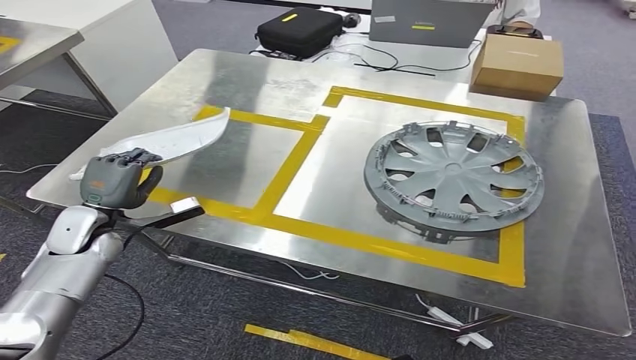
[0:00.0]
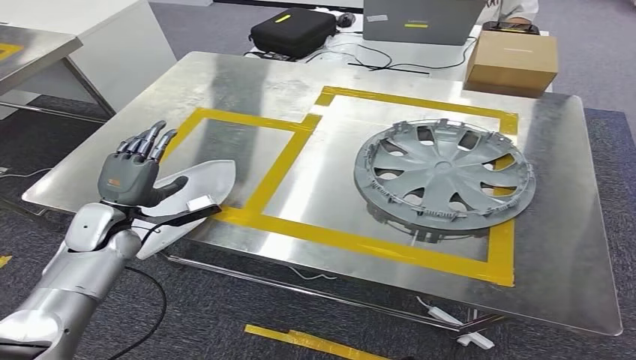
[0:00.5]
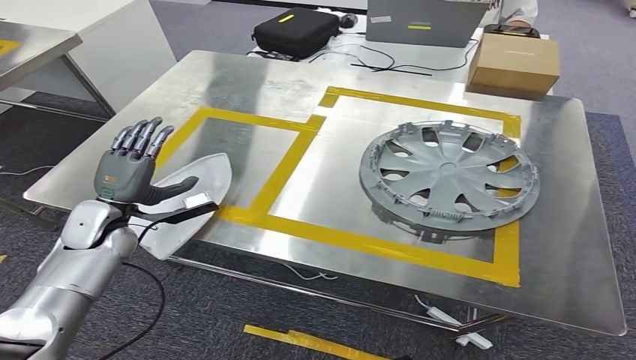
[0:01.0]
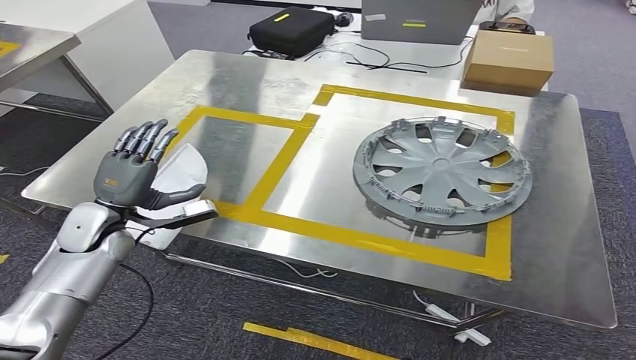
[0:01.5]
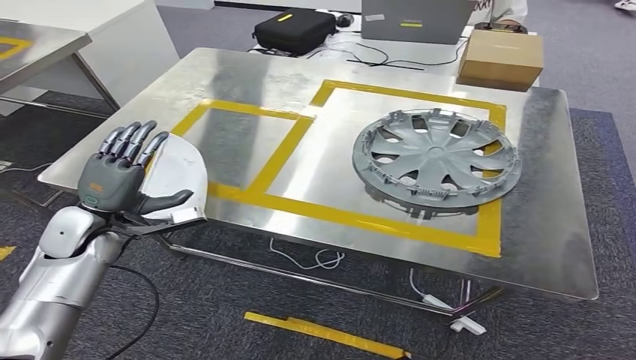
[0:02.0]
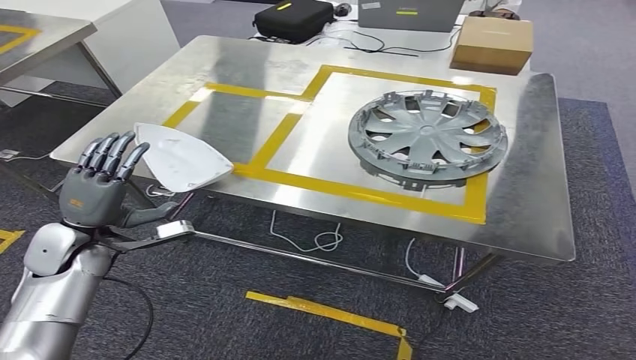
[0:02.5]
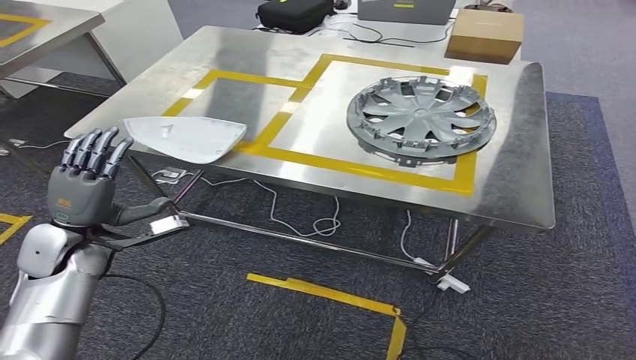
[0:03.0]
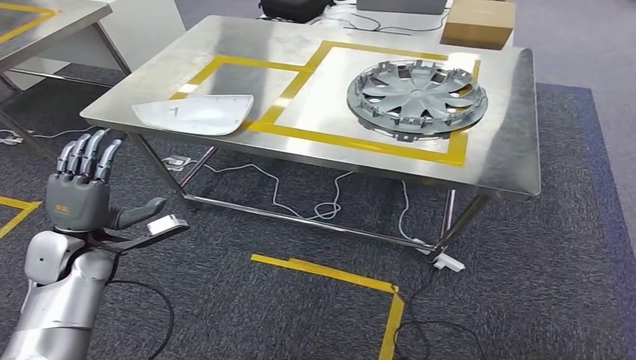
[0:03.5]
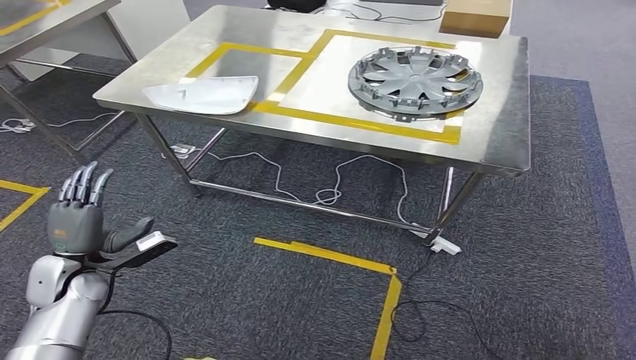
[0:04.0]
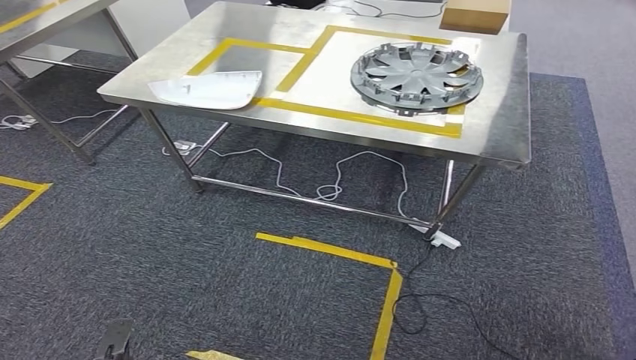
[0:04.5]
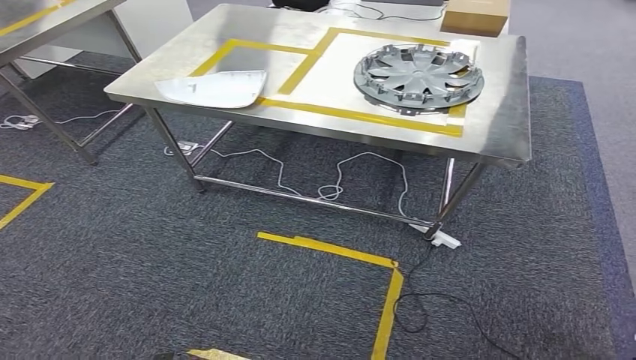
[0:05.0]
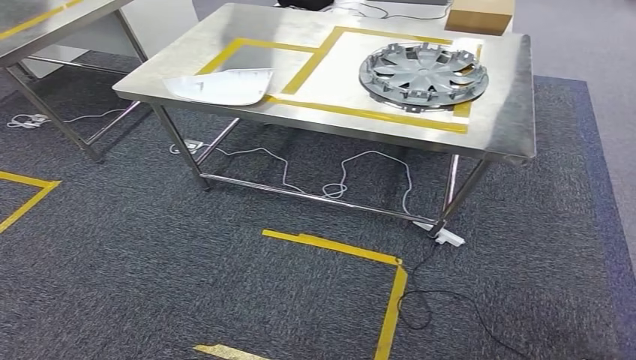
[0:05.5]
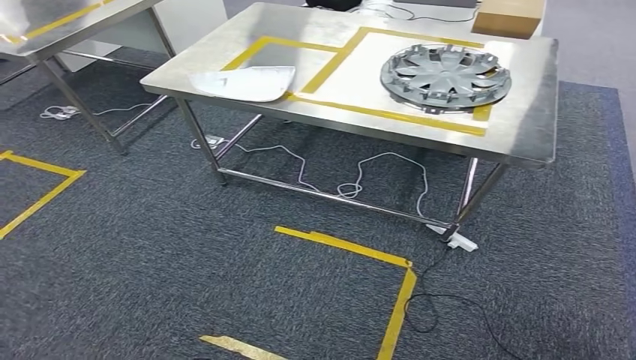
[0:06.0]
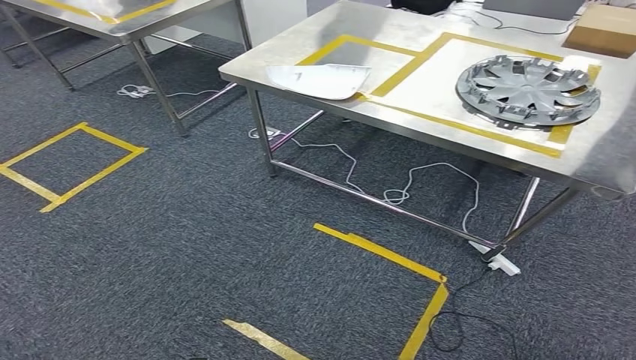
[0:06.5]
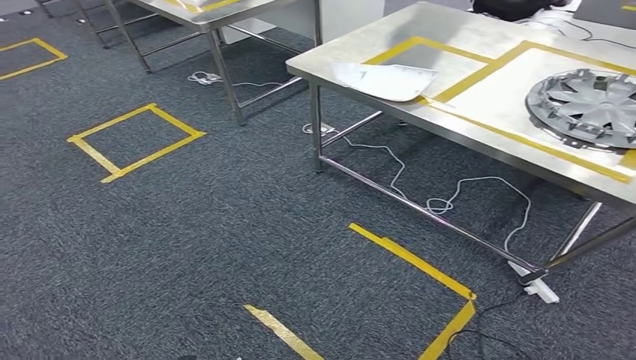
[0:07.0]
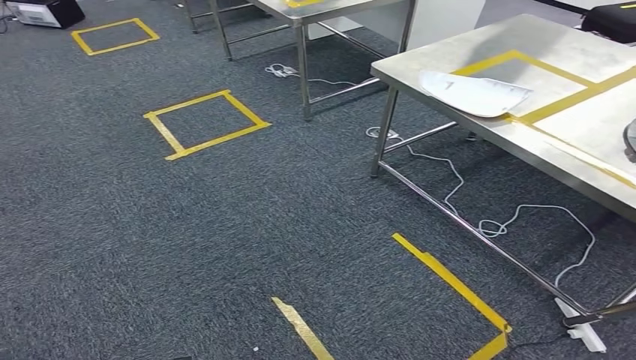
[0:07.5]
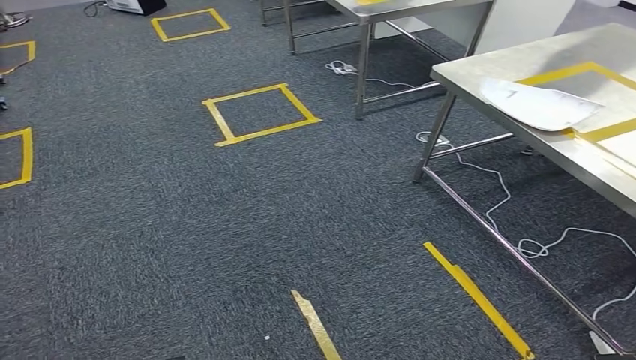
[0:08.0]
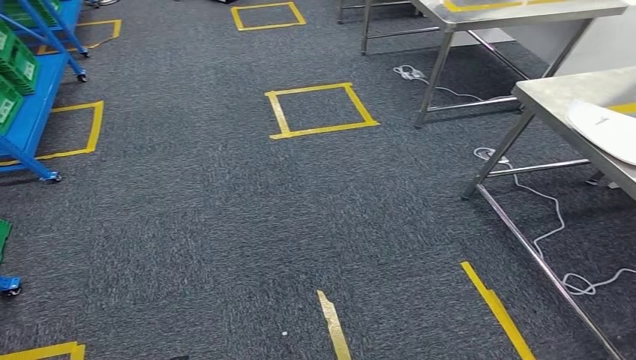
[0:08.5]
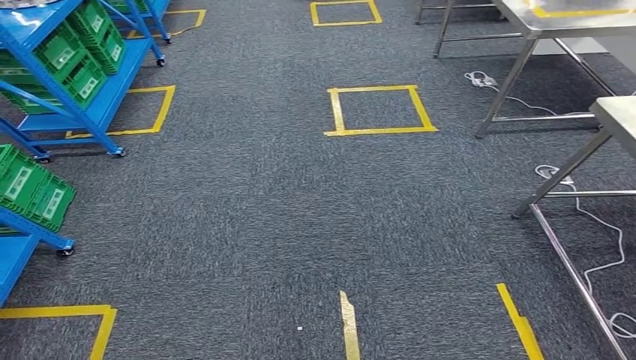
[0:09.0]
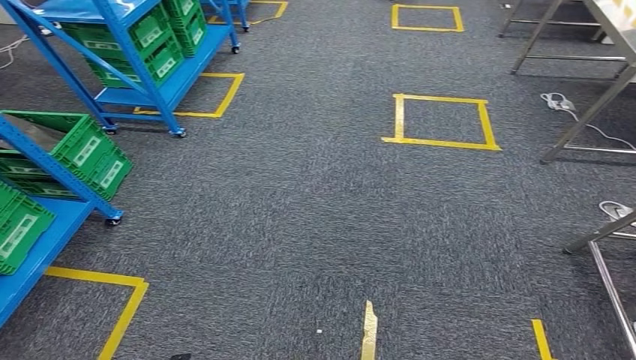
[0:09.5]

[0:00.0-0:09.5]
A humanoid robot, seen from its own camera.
Step, 0:00.0 to 0:02.0: Insert the small component into the corresponding slot on the workbench.

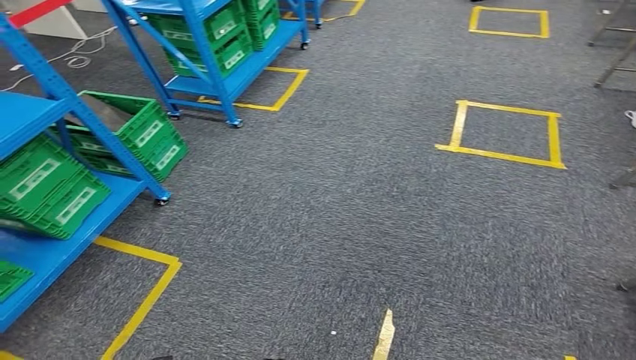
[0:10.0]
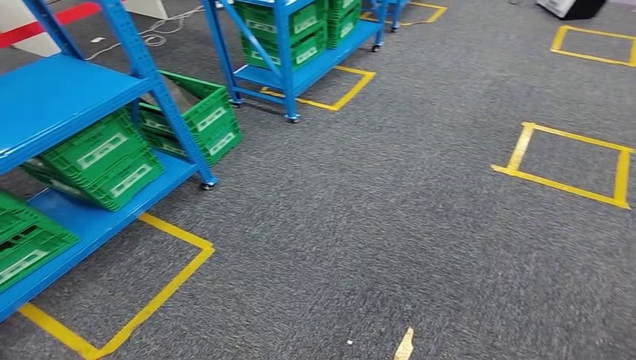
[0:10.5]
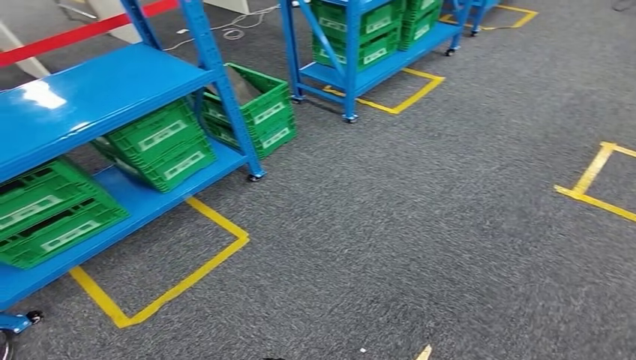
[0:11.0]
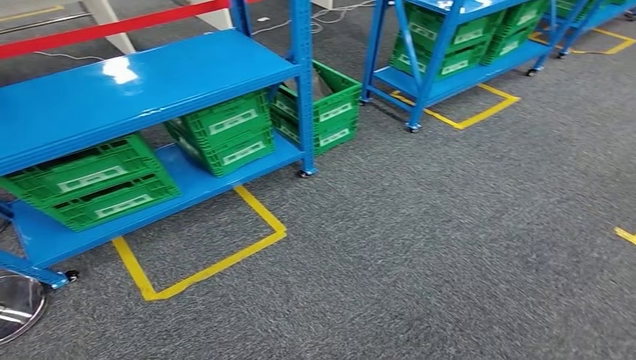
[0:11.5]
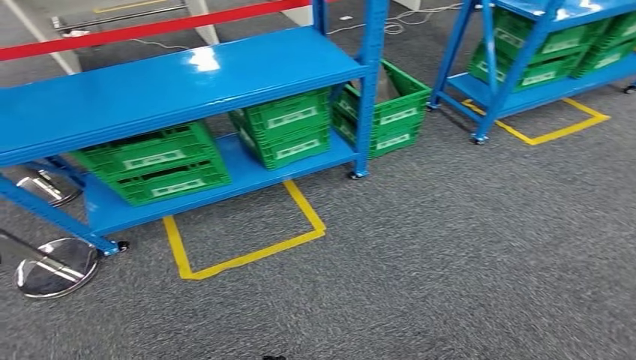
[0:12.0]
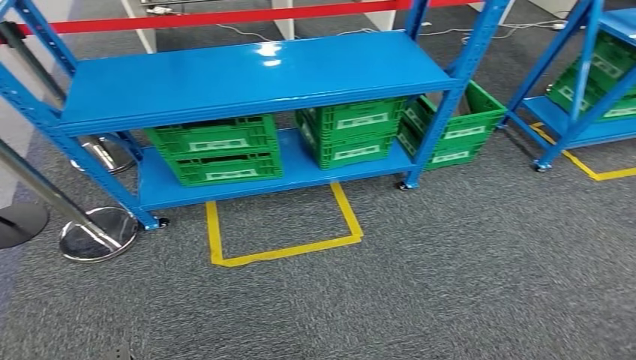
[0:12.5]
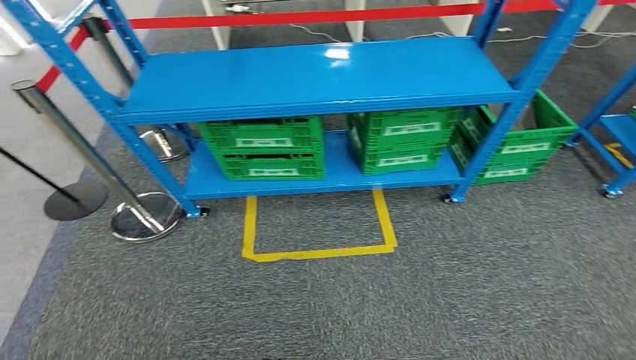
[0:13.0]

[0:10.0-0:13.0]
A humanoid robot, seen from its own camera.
Step, 0:10.0 to 0:13.0: Return to the initial position at the workbench.

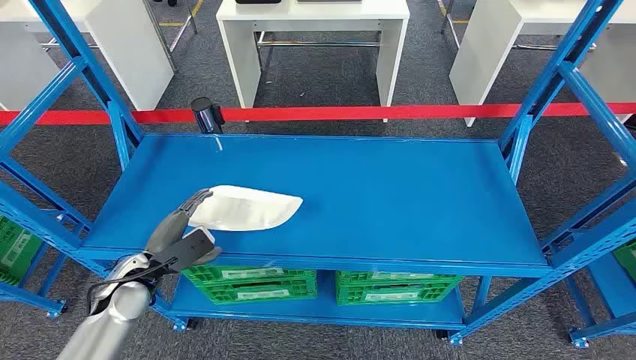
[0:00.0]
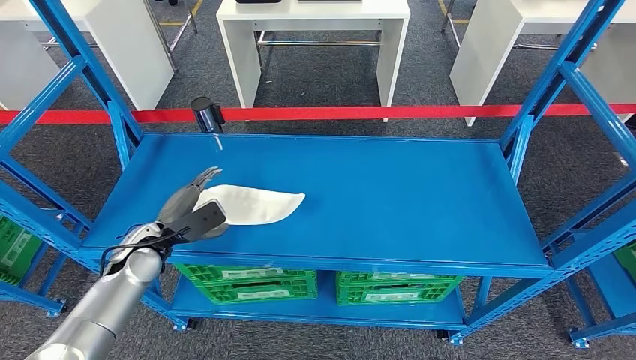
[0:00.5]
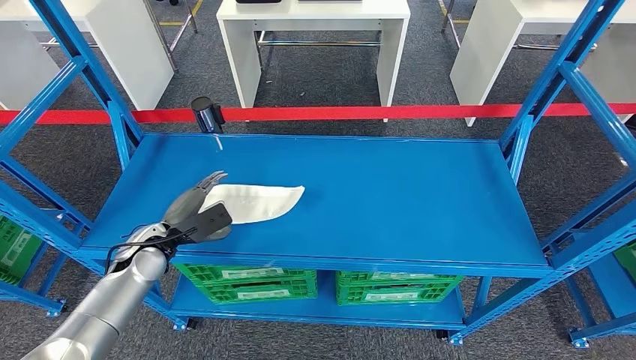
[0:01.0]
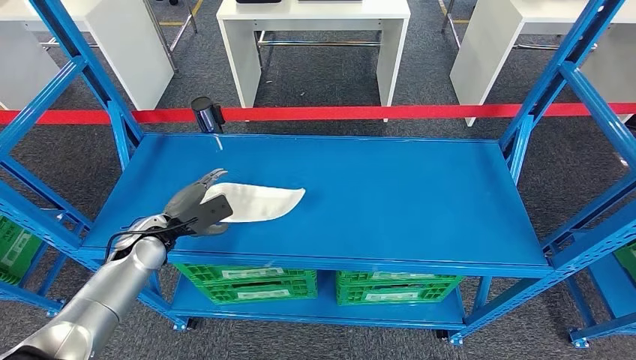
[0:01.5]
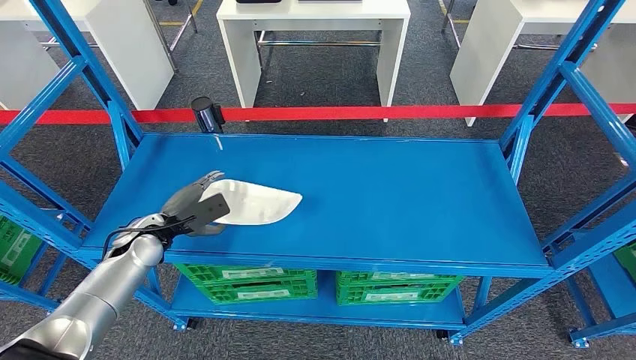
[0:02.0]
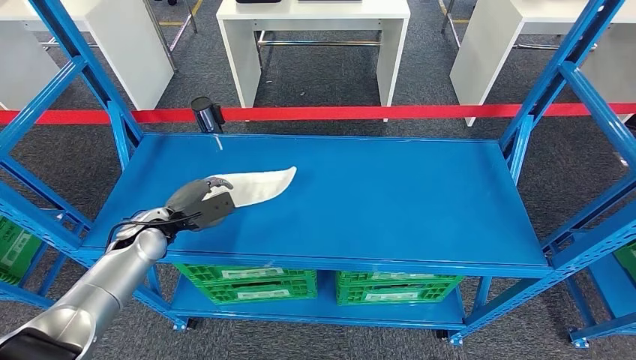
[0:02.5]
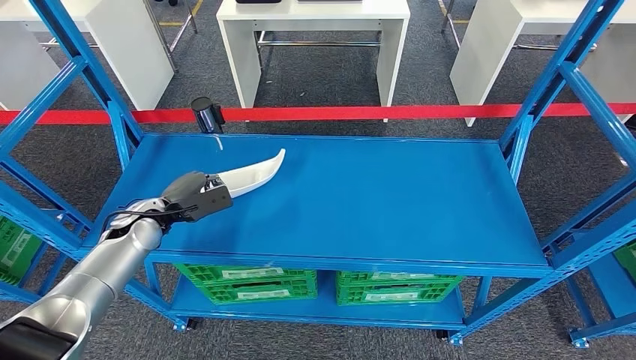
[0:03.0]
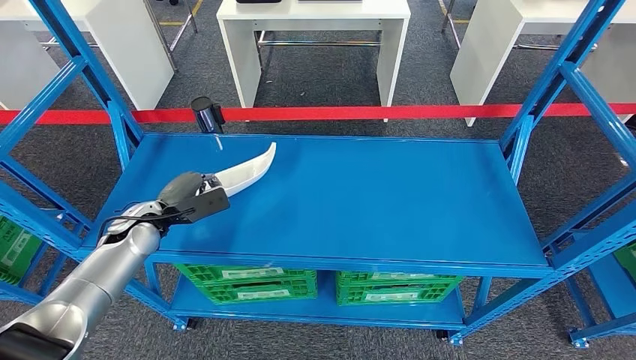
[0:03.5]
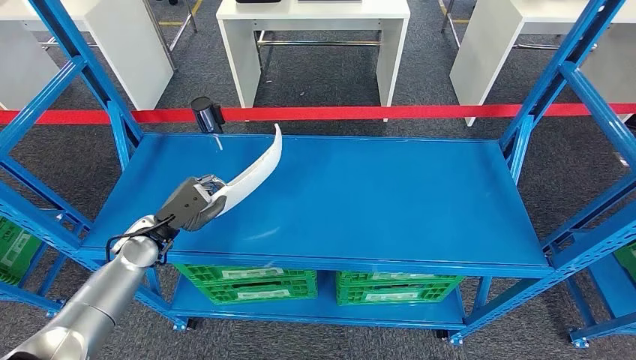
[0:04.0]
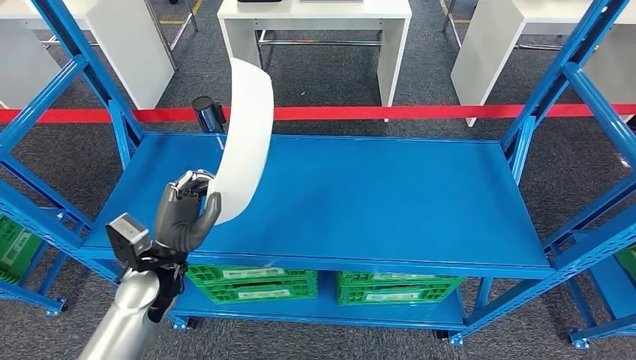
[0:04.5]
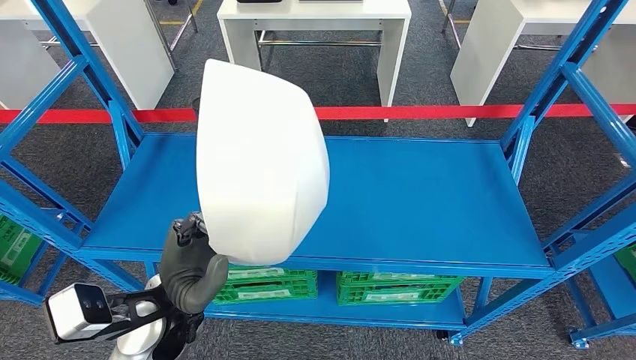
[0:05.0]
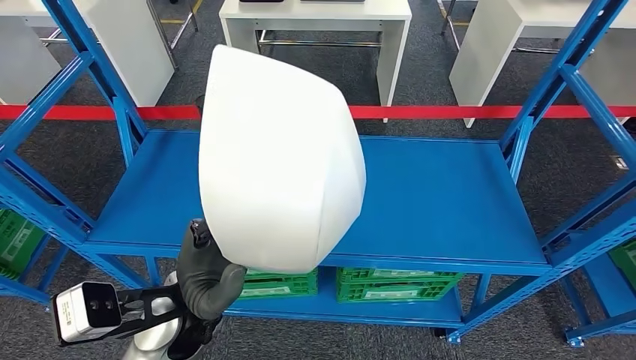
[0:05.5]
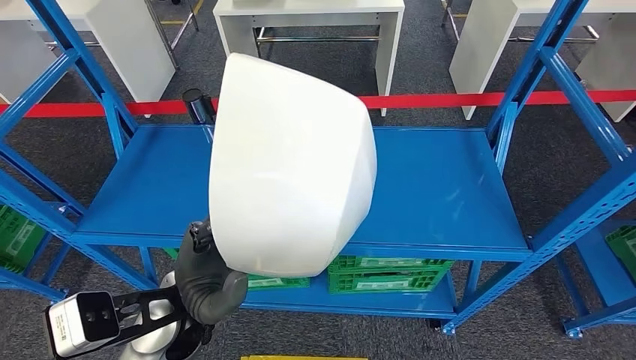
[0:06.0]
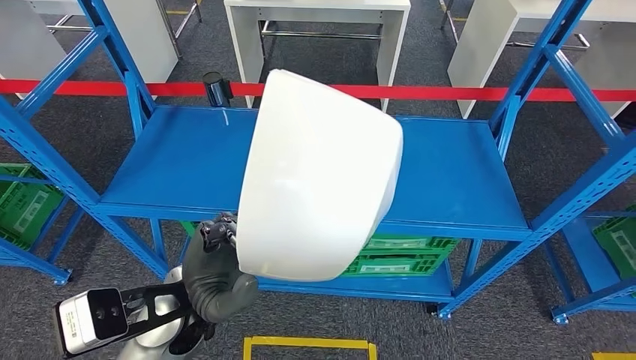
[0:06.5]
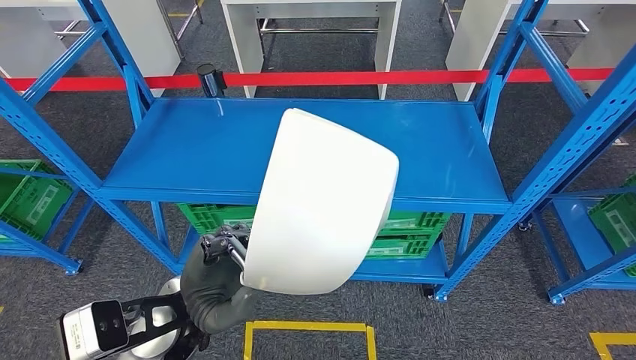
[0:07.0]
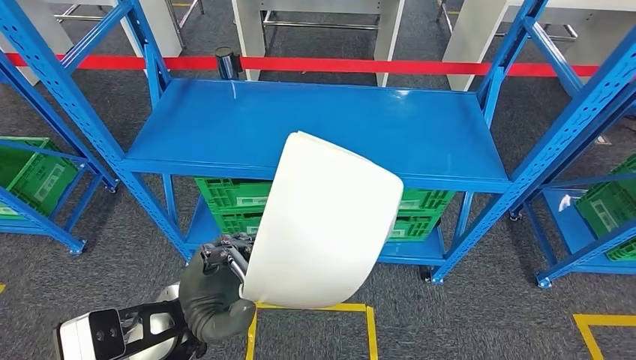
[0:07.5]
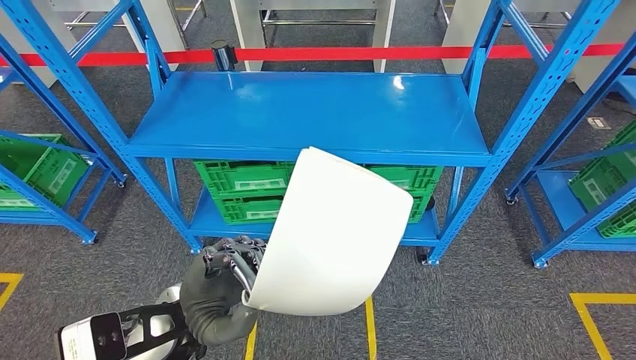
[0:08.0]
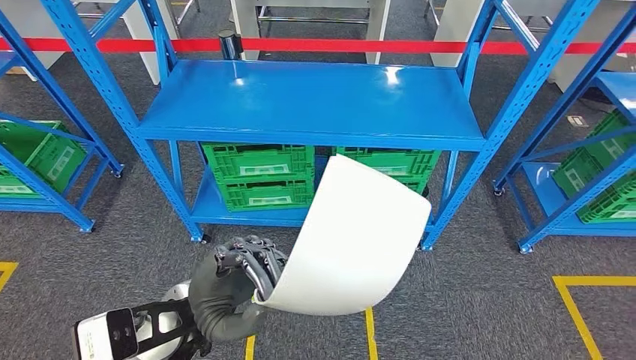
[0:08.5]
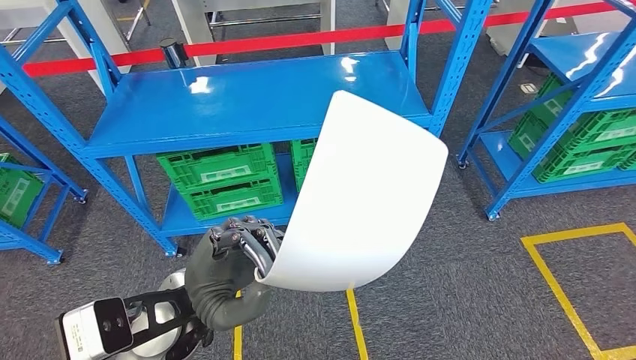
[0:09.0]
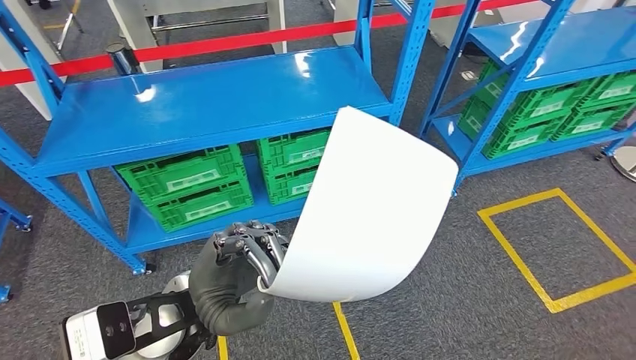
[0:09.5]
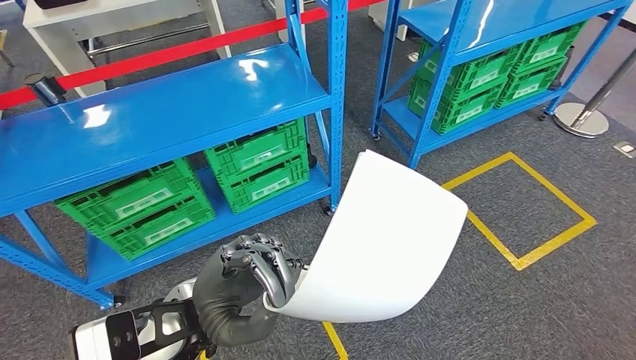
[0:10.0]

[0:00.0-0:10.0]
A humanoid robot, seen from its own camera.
Step, 0:00.0 to 0:05.5: Pick up the small component from the shelf.
